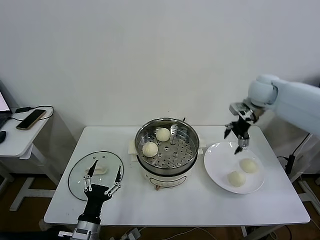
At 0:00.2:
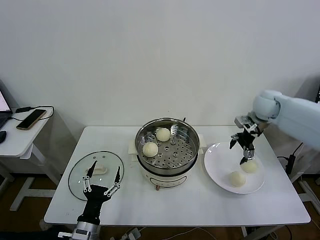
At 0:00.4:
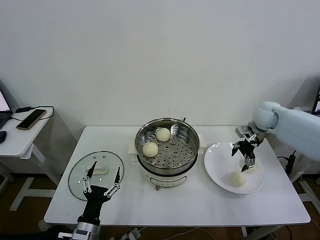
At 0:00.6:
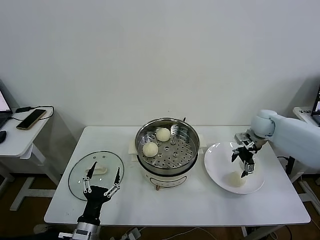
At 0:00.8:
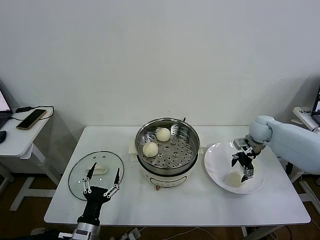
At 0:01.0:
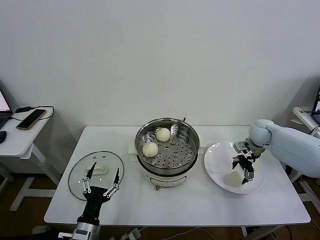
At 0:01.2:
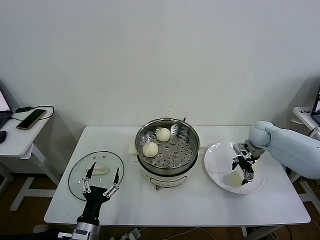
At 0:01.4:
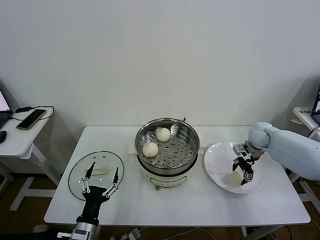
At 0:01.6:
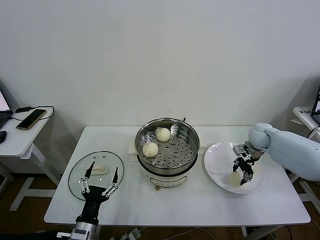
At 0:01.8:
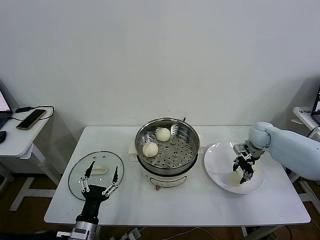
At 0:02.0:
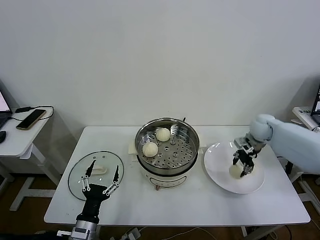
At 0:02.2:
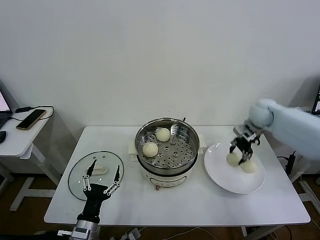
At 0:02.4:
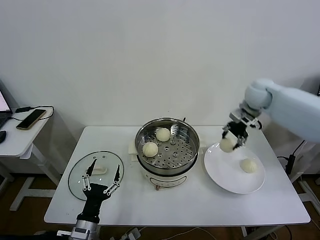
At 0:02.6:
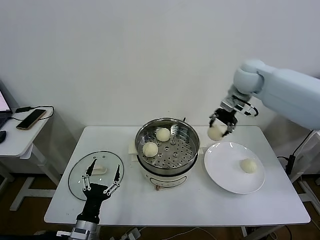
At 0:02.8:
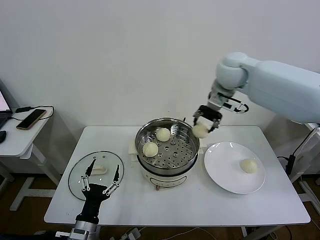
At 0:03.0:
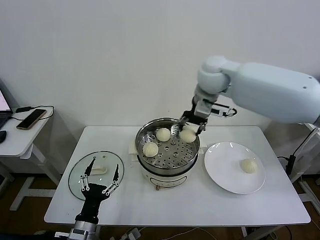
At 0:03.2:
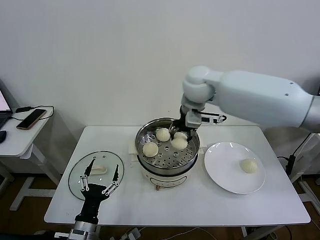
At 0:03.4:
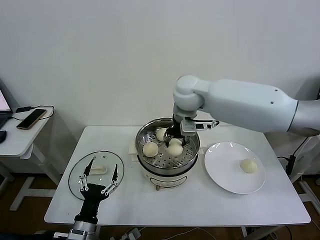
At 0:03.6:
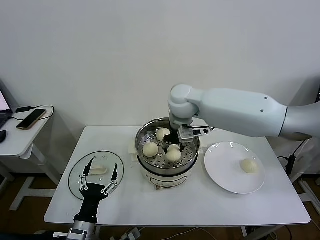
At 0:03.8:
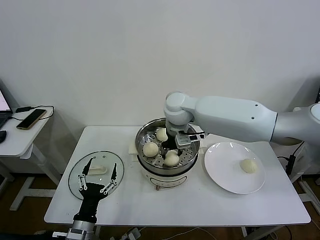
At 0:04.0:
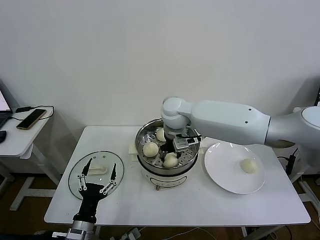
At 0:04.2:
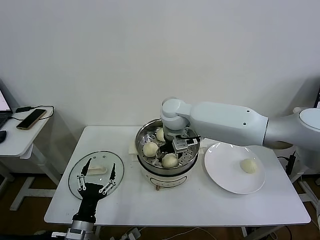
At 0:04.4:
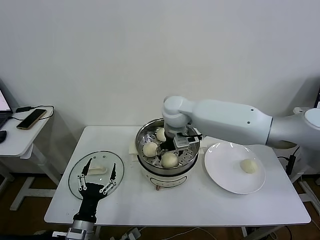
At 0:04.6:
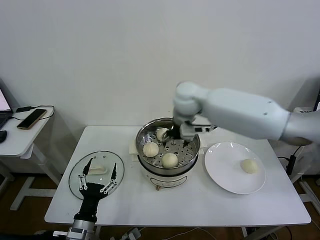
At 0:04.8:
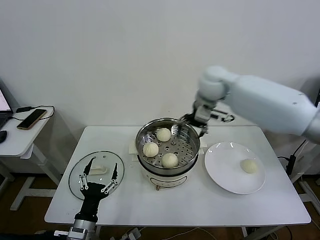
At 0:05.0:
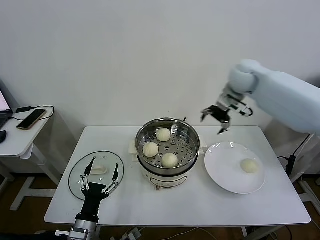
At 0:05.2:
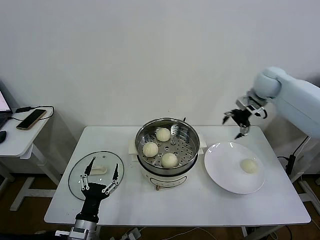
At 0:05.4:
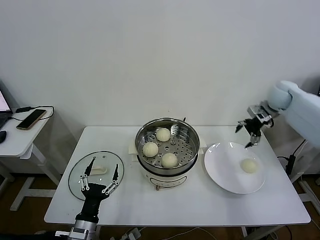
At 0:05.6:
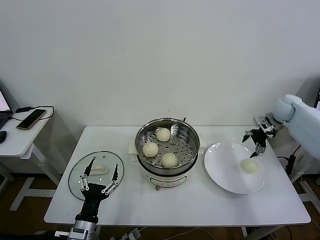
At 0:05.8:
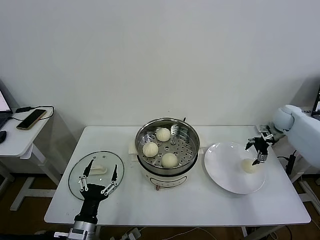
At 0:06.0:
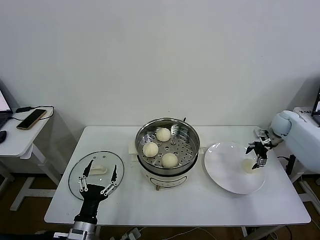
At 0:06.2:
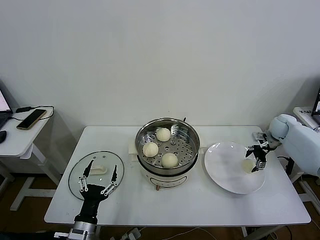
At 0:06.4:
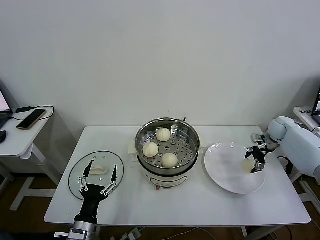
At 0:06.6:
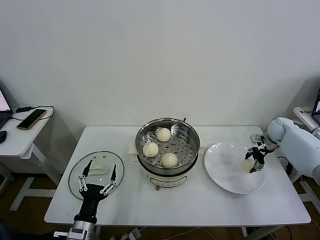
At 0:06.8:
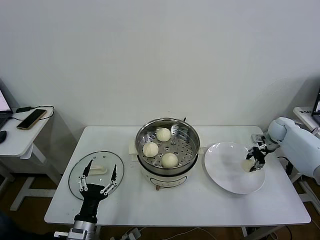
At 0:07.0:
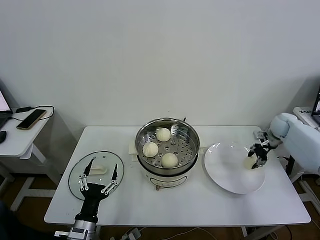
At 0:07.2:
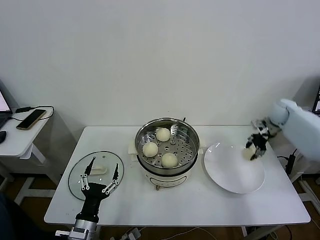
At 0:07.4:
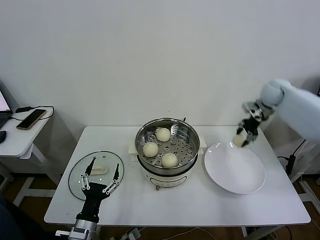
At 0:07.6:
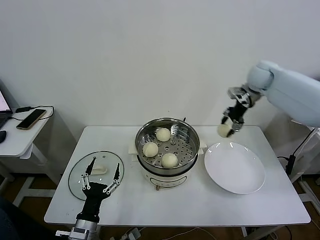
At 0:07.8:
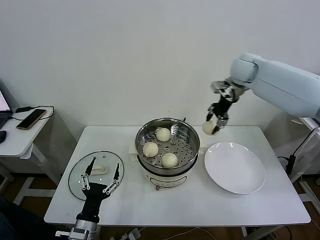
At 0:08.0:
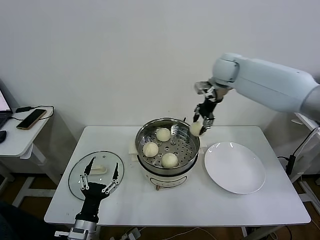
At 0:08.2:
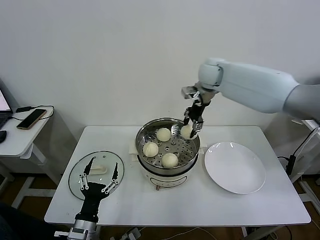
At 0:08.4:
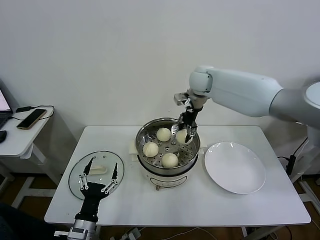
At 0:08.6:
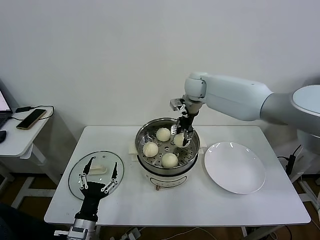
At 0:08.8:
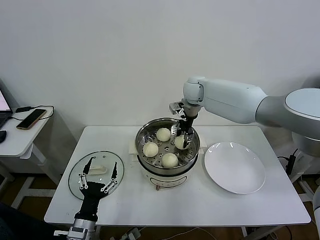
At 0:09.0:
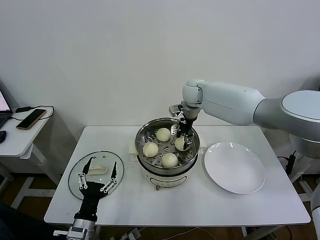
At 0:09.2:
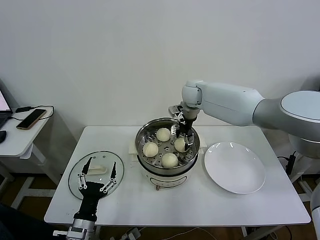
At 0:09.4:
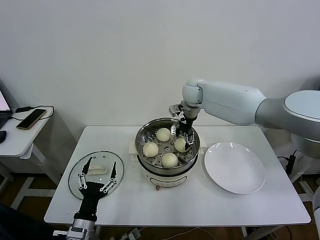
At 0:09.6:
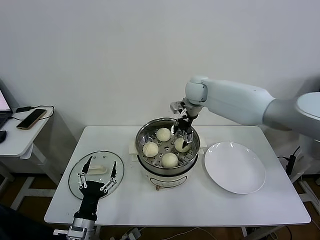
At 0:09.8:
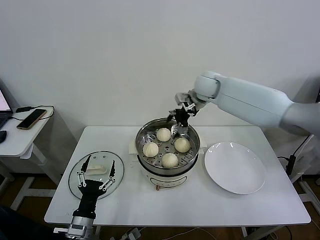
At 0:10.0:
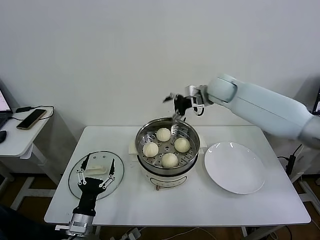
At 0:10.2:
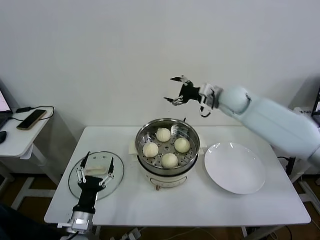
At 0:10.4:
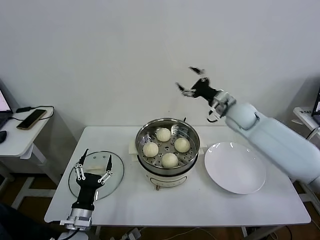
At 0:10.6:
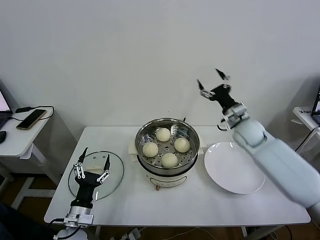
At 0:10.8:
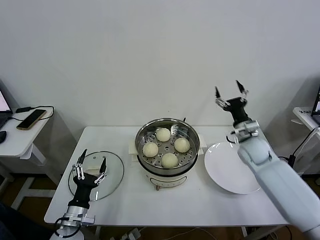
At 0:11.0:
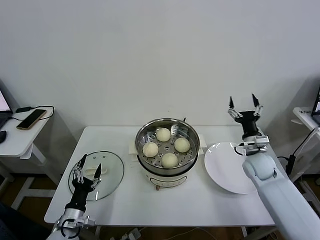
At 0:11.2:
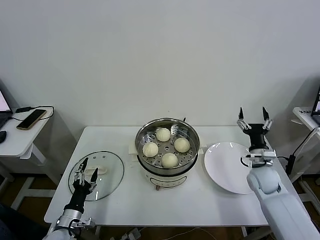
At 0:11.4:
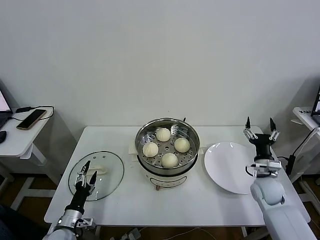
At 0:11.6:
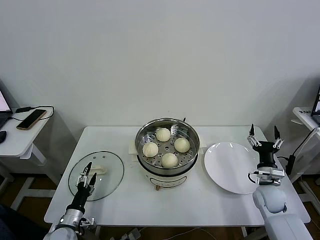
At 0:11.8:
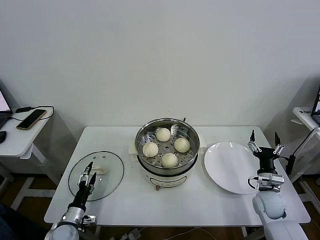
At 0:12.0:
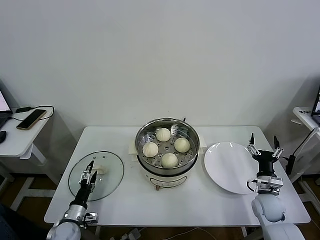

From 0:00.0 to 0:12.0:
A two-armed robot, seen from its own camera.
Task of the whole recording: take steamed baozi put them in steamer then cover it.
Step, from 0:00.0 to 0:01.8: Grasp the baozi in the plate with right gripper.
Step, from 0:02.0 to 0:04.2: Place the baozi on the steamer with right gripper.
Step, from 0:04.6 to 0:06.8: Grasp the baozi in the plate with right gripper.
Step, from 0:07.0 to 0:09.2: Place the baozi on the steamer with right gripper.
From 0:00.0 to 0:01.6: The right gripper is displaced downward by roughly 15 cm, and closes.
From 0:01.6 to 0:03.0: The right gripper goes approximately 35 cm to the left and upward.
From 0:03.0 to 0:04.4: The right gripper travels downward and to the left by roughly 10 cm, and opens.
From 0:04.4 to 0:06.0: The right gripper moves to the right, roughly 40 cm.
From 0:06.0 to 0:07.6: The right gripper heads upward and to the left, covering approximately 25 cm, and closes.
From 0:07.6 to 0:09.0: The right gripper shifts roughly 20 cm to the left.
From 0:09.0 to 0:10.4: The right gripper shifts about 20 cm to the right and backward, and opens up.
From 0:10.4 to 0:12.0: The left gripper goes about 15 cm downward and to the left; the right gripper shifts about 35 cm downward, backward and to the right.

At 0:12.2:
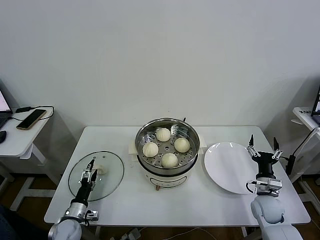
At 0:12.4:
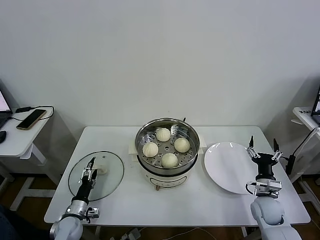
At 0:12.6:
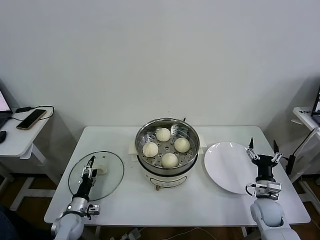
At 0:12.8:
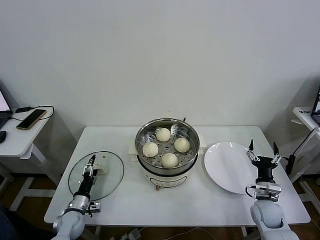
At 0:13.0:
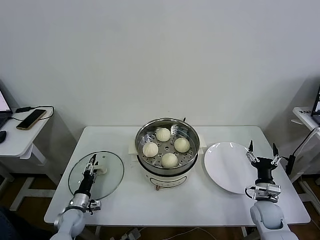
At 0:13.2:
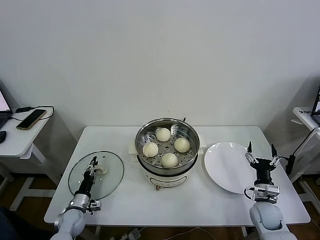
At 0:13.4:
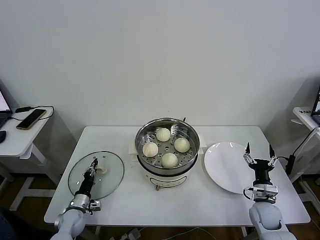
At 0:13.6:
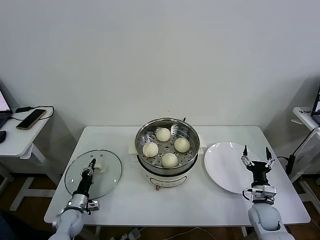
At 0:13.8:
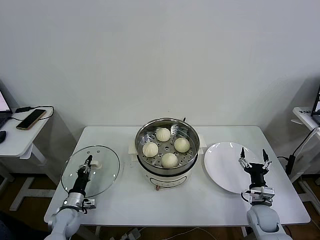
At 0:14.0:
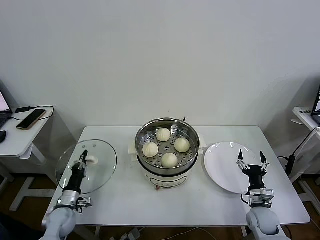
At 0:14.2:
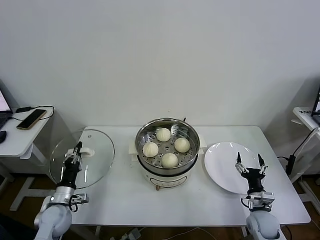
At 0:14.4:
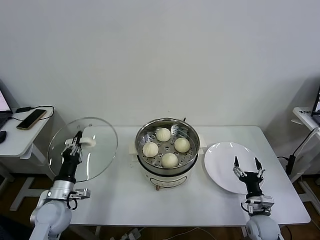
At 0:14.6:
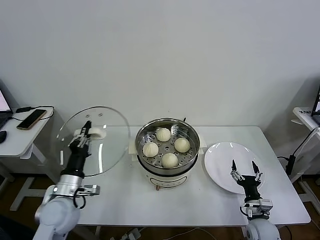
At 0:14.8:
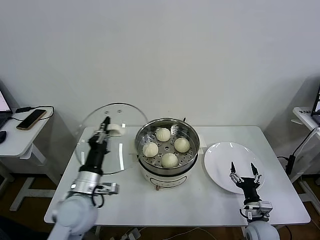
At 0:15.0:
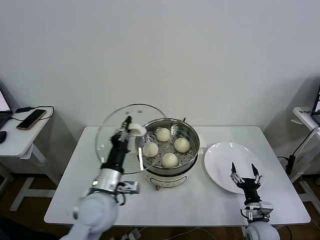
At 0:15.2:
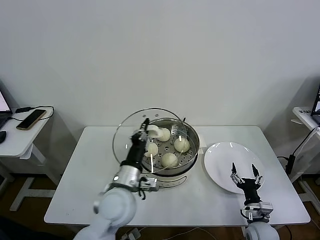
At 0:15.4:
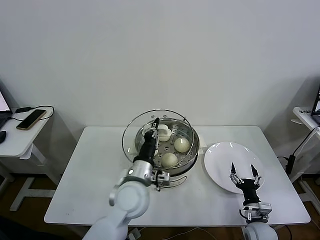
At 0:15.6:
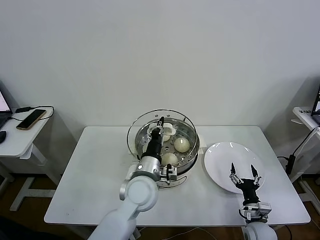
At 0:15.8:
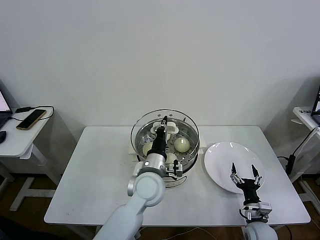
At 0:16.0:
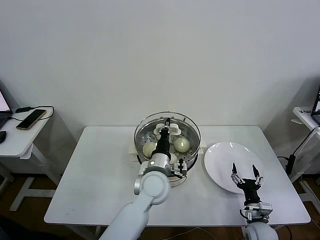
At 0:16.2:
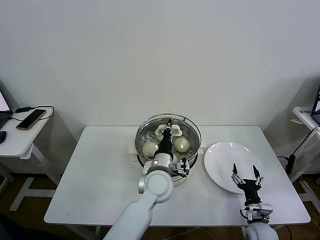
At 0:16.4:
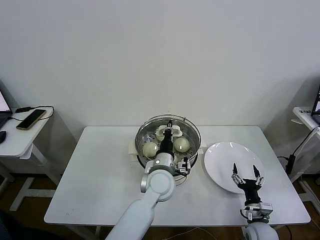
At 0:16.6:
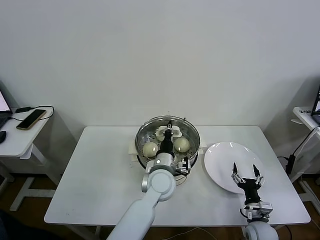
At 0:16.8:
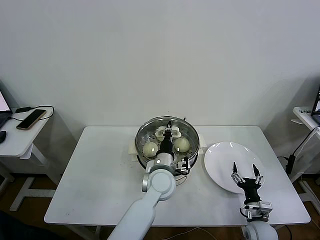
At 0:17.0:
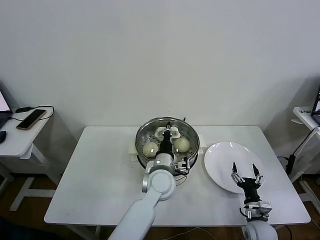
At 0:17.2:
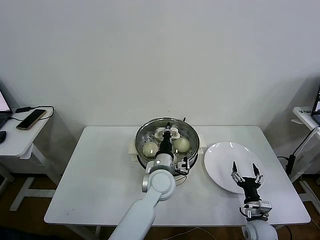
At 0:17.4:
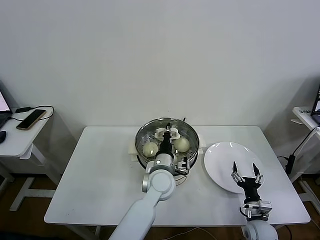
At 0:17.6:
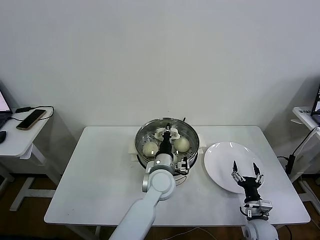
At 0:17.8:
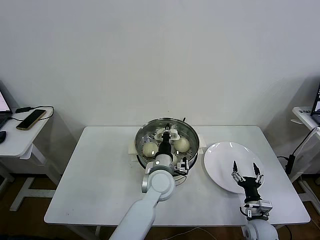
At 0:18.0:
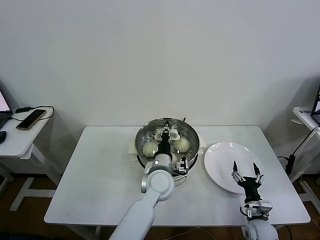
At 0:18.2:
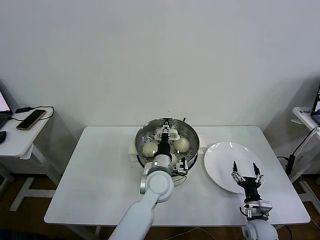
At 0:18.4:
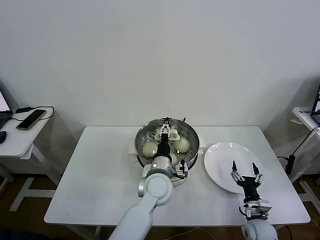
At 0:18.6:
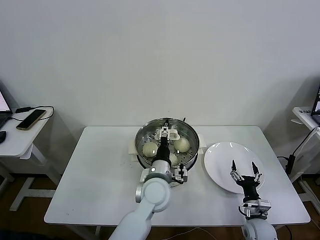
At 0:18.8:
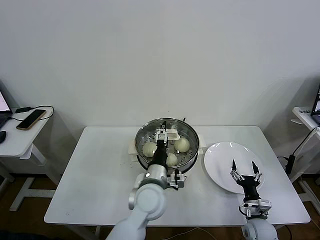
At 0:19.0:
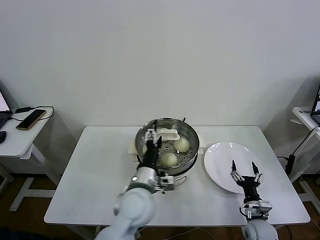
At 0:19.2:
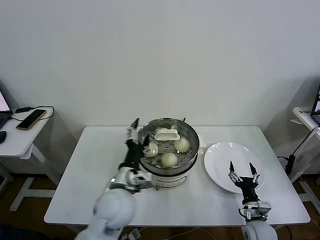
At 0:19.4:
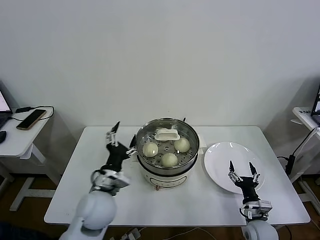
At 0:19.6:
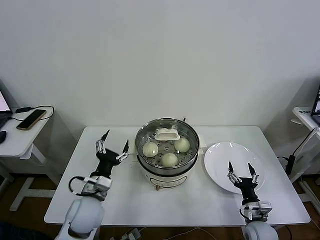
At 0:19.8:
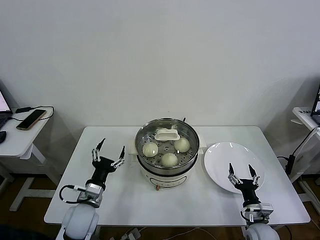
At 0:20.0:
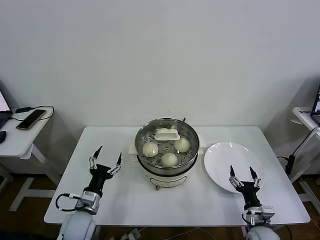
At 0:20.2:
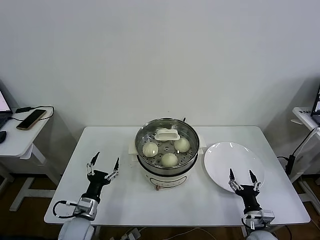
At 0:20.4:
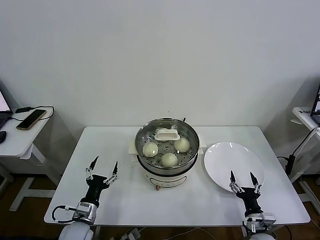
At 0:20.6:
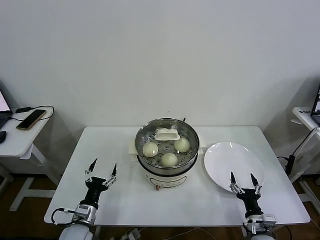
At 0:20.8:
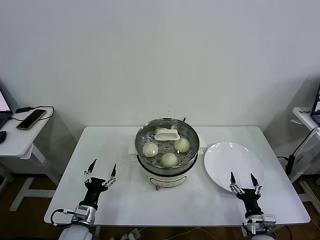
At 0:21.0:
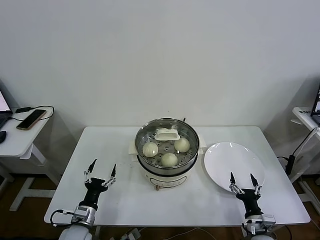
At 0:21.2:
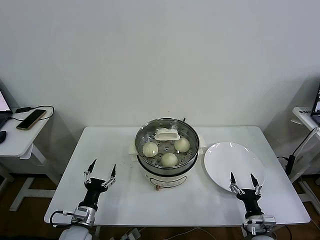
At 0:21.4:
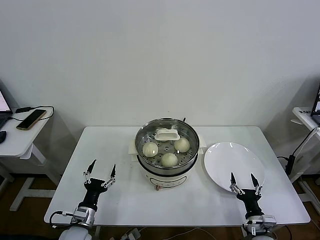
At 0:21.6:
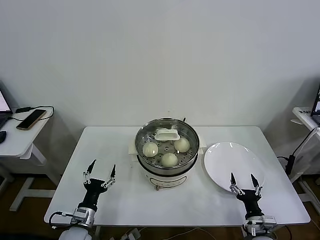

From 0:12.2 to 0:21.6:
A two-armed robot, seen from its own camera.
Task of the whole recording: take steamed baozi put them in steamer then cover it.
Step, from 0:13.8 to 0:18.0: Place the pot lid on the steamer with left gripper.
From 0:12.2 to 0:13.8: The left gripper closes.
From 0:13.8 to 0:15.4: The right gripper heads backward, covering approximately 5 cm; the left gripper travels to the right and upward by roughly 35 cm.
From 0:15.4 to 0:17.0: The left gripper moves to the right and forward, roughly 10 cm.
From 0:17.0 to 0:18.4: The left gripper opens.
From 0:18.4 to 0:20.0: The left gripper heads to the left, covering some 25 cm.
From 0:20.0 to 0:21.6: The left gripper is displaced downward by roughly 5 cm.
